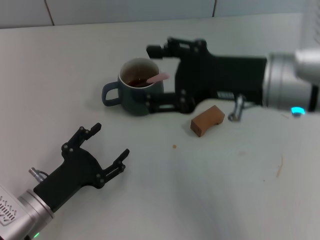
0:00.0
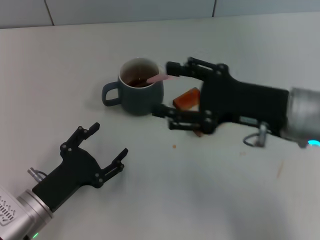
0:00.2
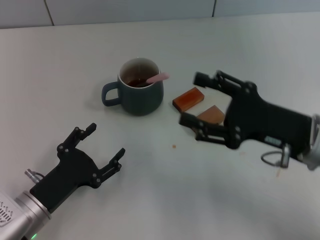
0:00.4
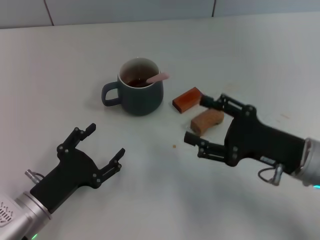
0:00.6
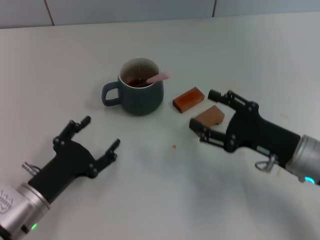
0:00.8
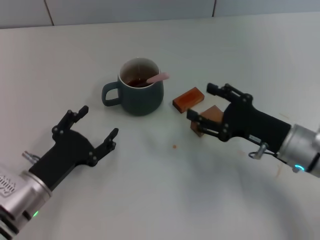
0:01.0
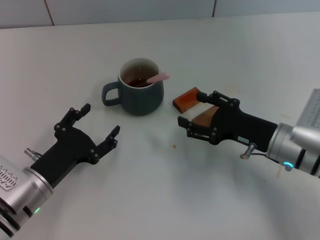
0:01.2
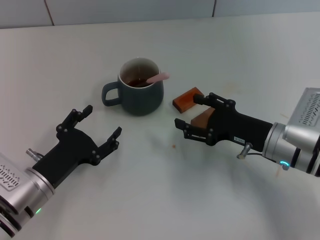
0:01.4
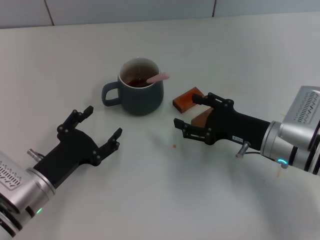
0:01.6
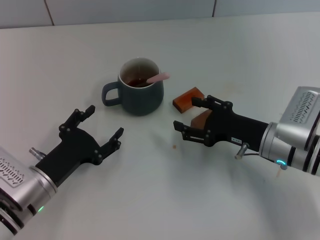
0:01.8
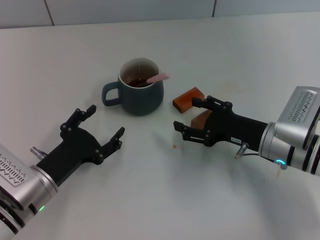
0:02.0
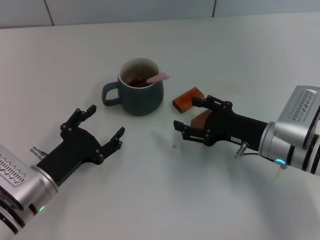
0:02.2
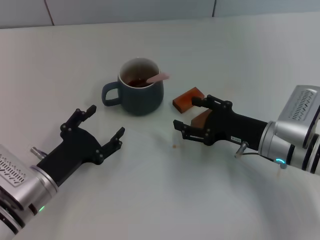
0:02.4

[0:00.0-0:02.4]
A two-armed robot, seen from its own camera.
Task of the whole recording: Move the grey cup to the center, lift the pink spoon, stir it three times in the cup, and put the spoon into the cup.
0:00.0 to 0:01.2: The right gripper heads downward, covering roughly 15 cm.
0:01.2 to 0:02.4: The grippers stay close to where they were, moving slightly.
